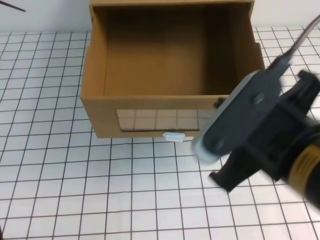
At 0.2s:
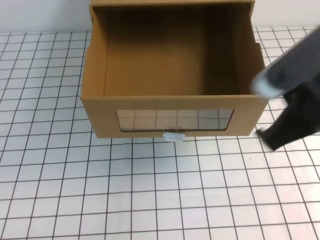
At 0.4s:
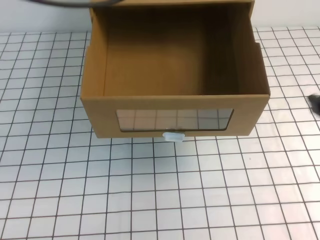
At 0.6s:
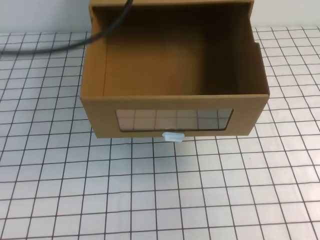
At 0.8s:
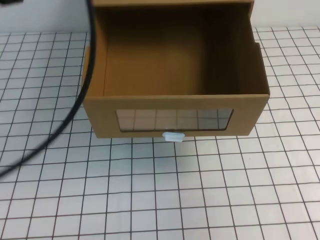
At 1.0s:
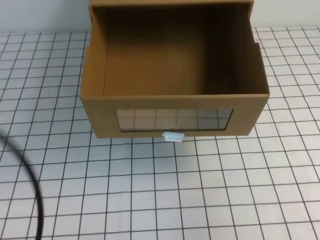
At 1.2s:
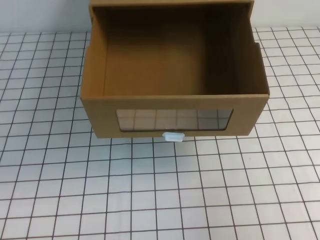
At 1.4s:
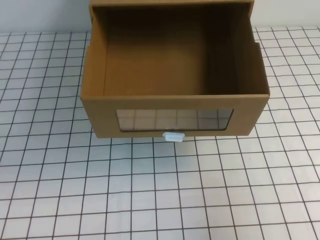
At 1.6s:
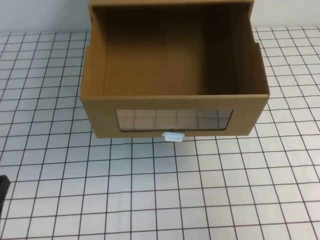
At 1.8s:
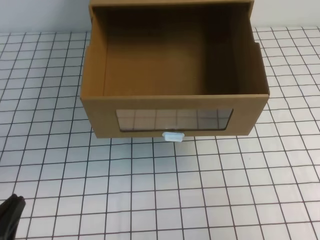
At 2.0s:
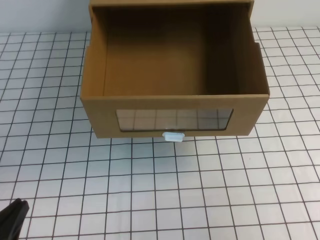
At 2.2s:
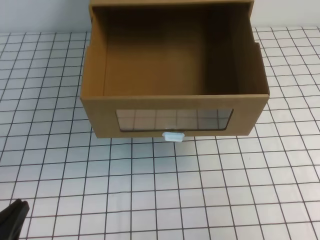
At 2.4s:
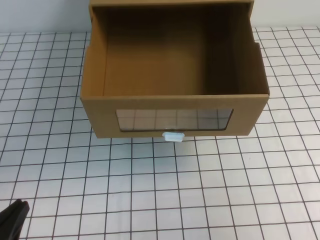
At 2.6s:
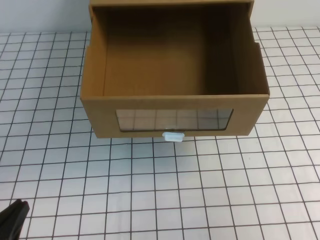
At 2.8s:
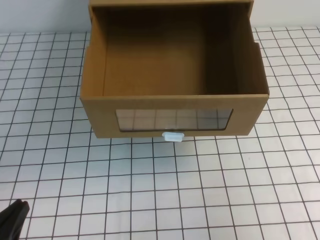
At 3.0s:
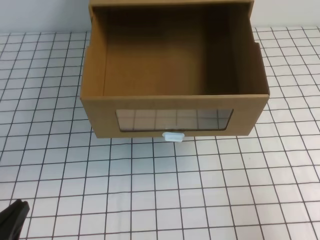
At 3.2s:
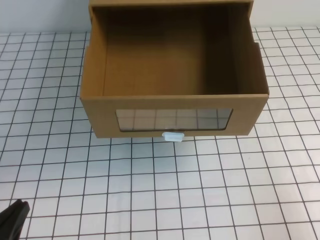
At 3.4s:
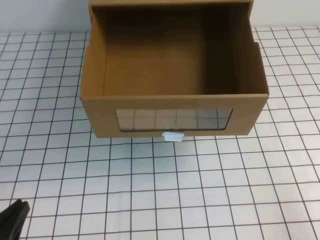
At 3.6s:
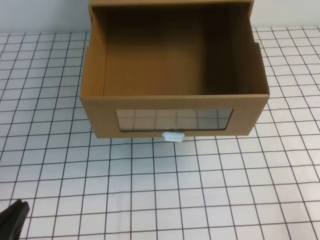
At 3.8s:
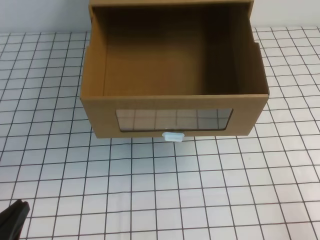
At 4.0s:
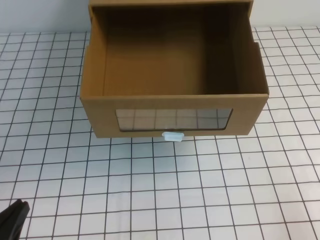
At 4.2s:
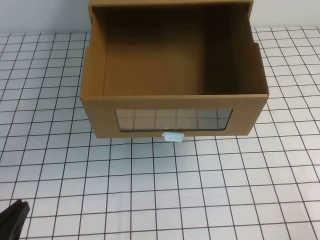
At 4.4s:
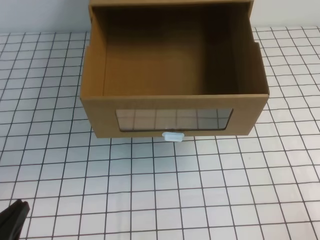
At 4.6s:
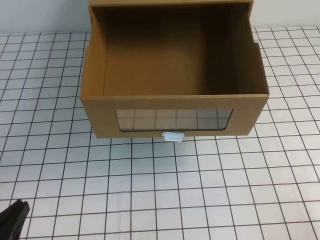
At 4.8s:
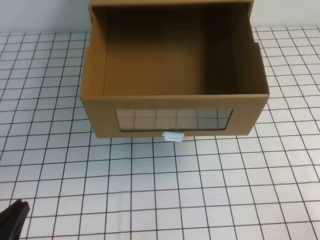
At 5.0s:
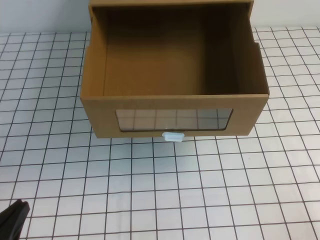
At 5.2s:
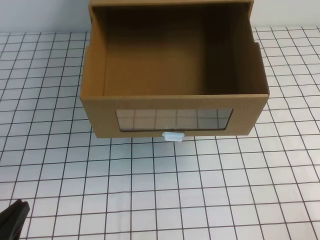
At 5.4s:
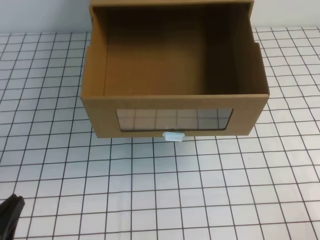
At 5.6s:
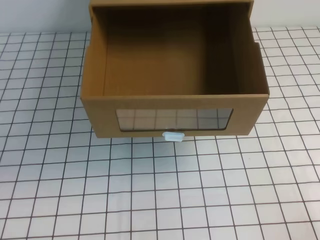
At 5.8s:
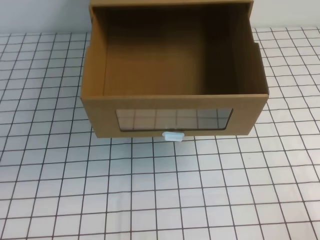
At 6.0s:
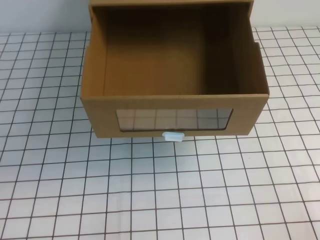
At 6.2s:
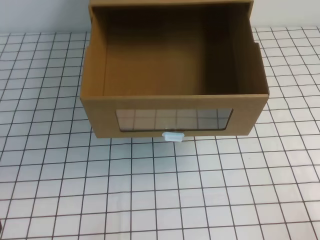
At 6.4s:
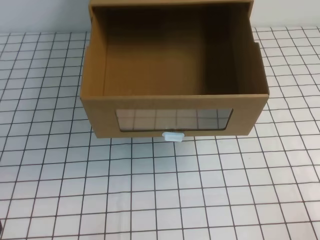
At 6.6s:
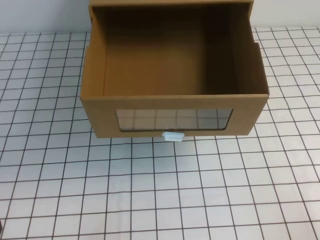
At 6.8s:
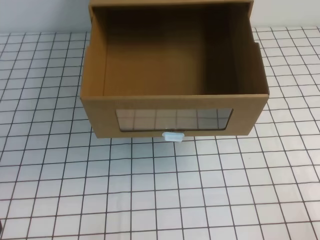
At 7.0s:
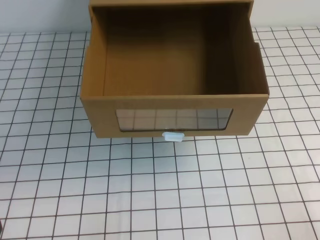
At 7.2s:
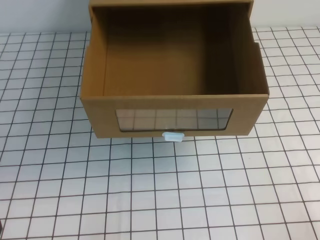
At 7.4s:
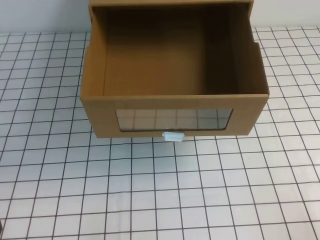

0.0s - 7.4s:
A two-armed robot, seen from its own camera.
Task of the whole recording: open the shoebox on the white tablecloth.
Step, 0.0s - 7.4s: Open the shoe box.
0.0s - 1.4s: The right gripper shifts roughly 15 cm to the right; the left gripper goes about 40 cm backward, downward and to the left.
1.4s - 3.0s: The left gripper shifts some 10 cm downward. Meanwhile the right gripper ends up about 5 cm from where it was.
3.0s - 4.4s: The right gripper is displaced downward and backward by approximately 10 cm.
4.4s - 6.0s: The grippers move only a little.

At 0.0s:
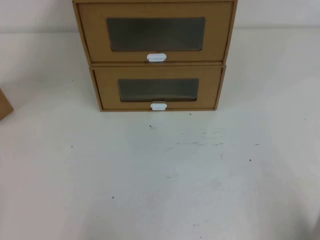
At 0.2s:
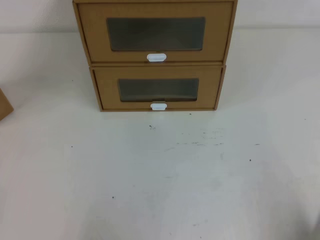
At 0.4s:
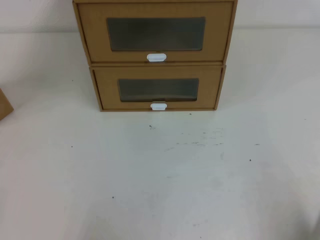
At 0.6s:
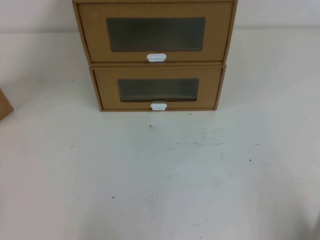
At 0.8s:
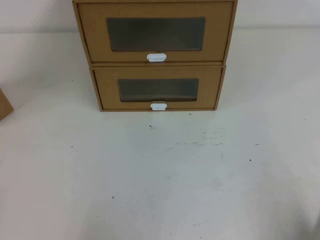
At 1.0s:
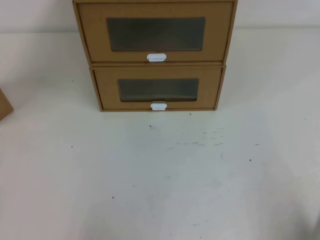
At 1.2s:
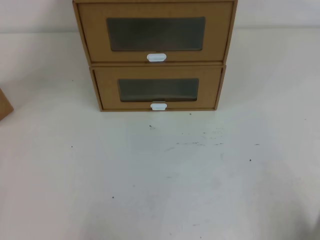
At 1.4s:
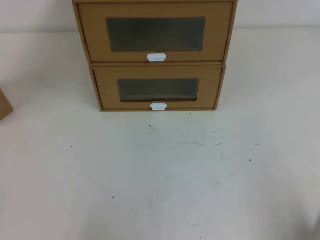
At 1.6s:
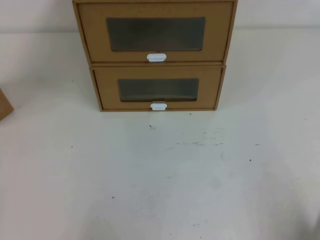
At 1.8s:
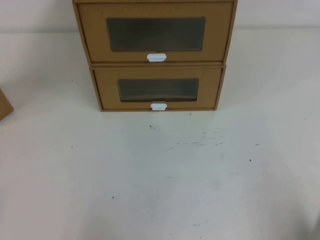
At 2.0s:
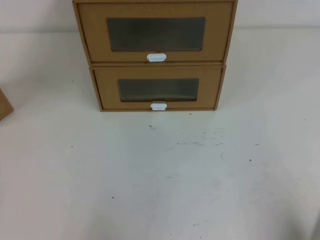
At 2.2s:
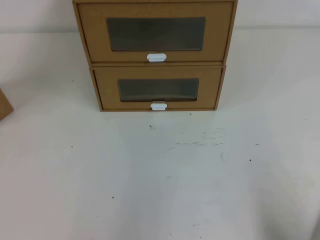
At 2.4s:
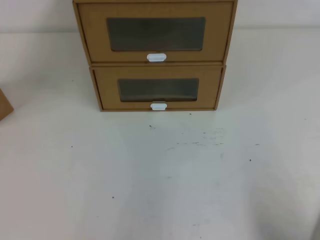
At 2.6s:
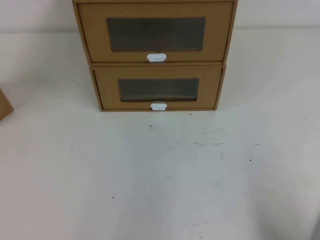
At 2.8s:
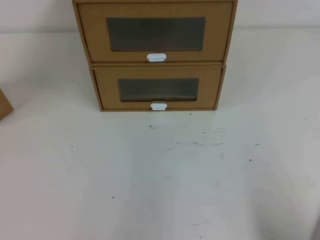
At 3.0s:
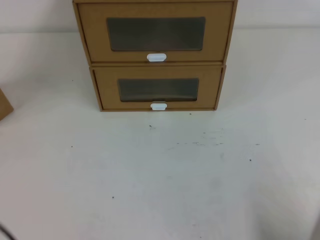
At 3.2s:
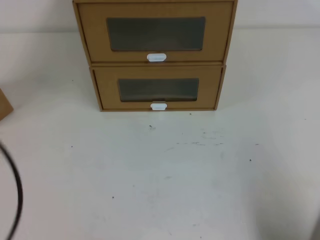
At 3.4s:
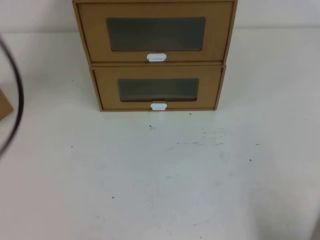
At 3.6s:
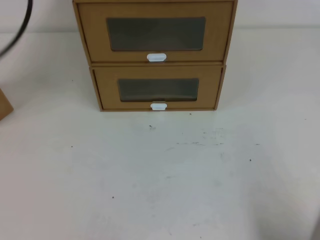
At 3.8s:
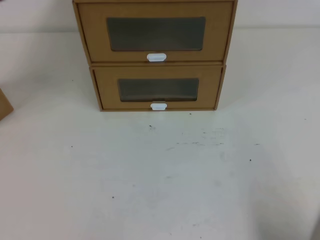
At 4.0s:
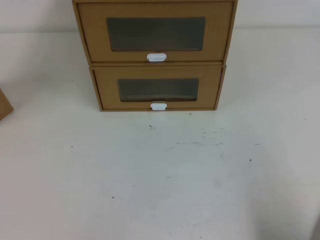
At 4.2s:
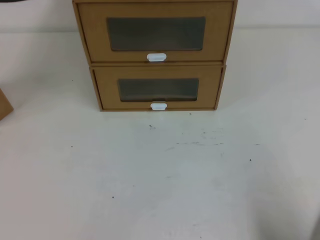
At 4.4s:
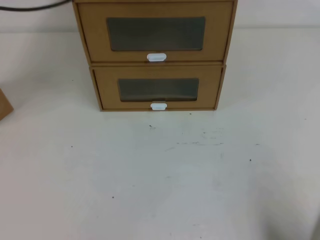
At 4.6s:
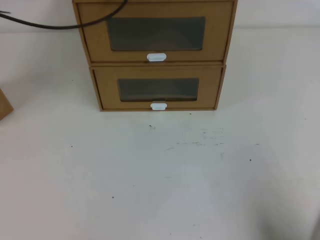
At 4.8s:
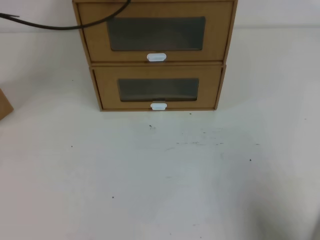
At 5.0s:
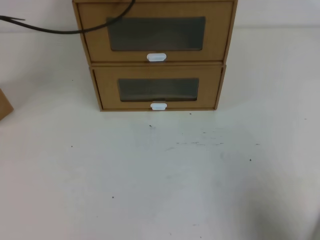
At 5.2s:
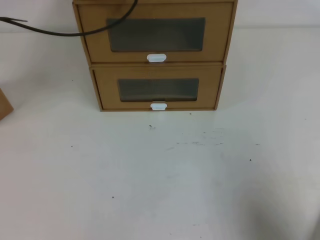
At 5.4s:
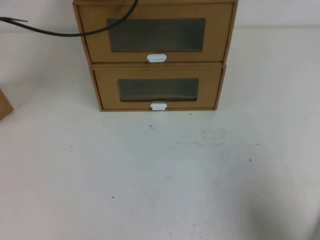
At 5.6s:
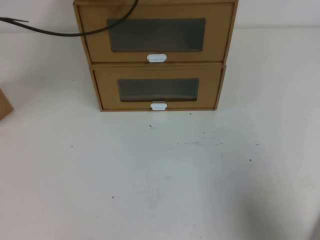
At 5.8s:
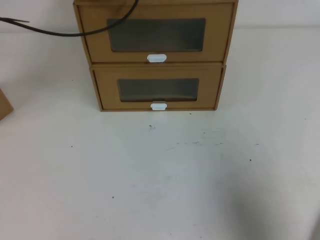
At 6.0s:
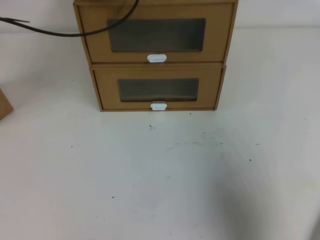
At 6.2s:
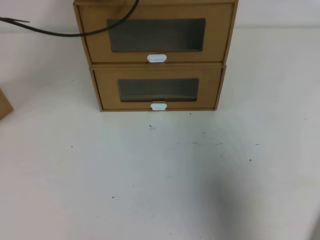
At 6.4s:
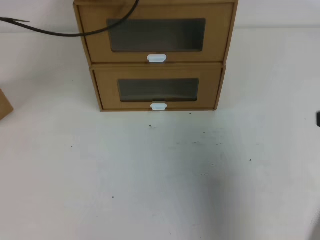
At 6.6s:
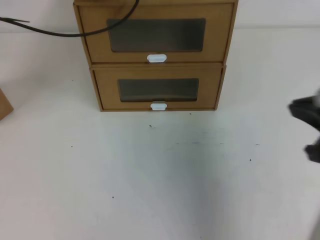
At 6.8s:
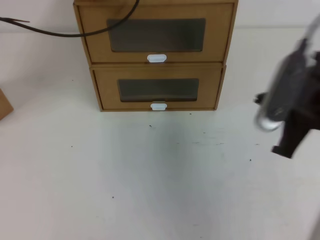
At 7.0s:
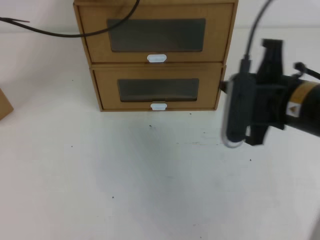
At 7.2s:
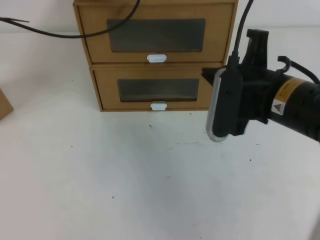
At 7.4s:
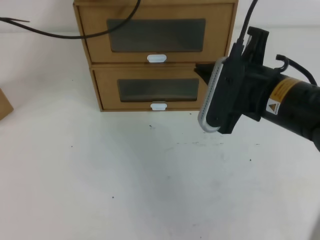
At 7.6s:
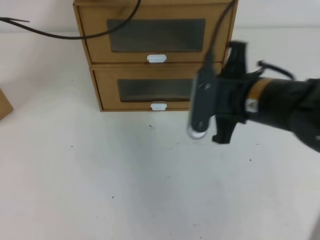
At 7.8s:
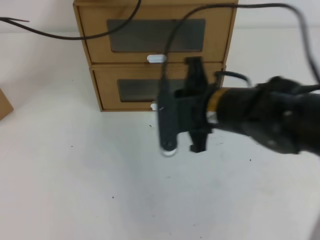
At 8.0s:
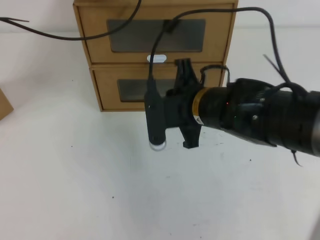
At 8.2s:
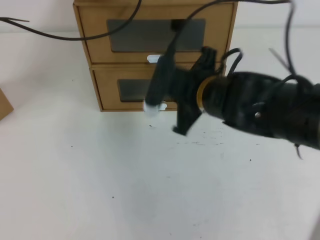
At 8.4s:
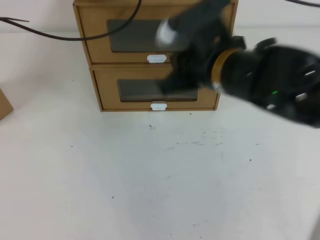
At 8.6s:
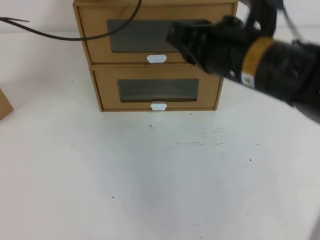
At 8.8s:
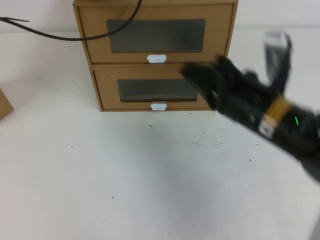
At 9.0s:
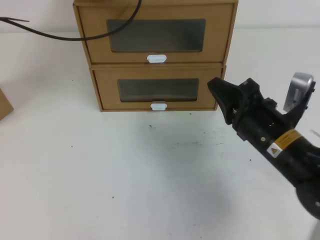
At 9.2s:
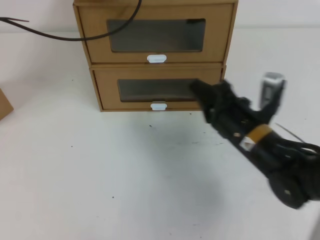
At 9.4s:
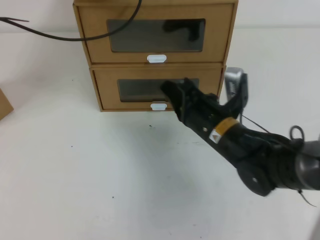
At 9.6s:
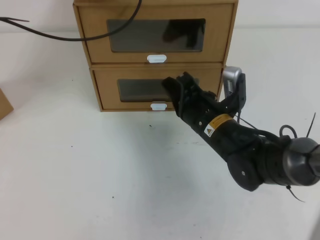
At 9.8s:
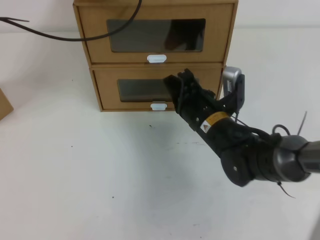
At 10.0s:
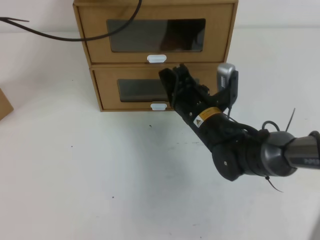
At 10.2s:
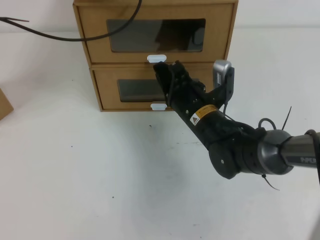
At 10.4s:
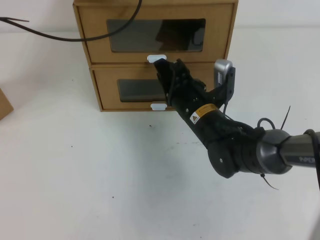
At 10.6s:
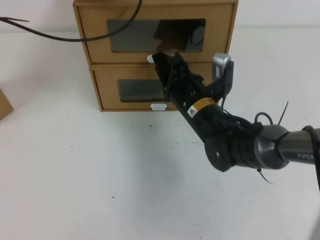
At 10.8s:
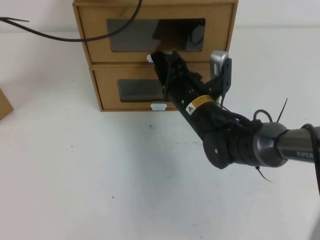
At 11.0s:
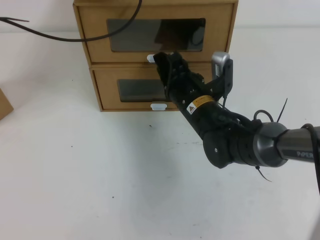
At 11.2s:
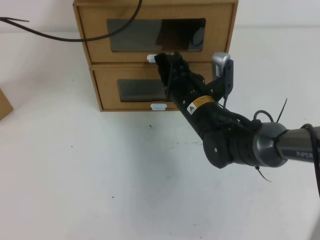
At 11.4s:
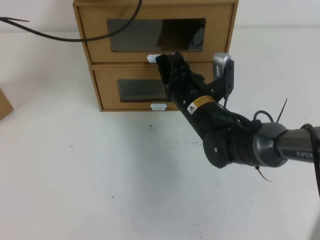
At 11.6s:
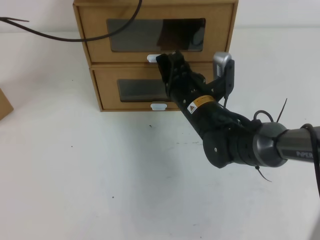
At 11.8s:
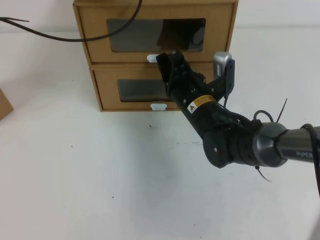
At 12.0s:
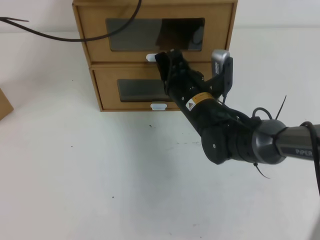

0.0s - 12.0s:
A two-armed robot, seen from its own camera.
Task of the whole recording: open the shoebox on the table.
0.0s - 1.6s: The two grippers keep their place.
3.0s - 4.4s: The left gripper shifts about 40 cm forward and upward.
4.4s - 6.0s: The left gripper is displaced downward and forward by some 10 cm; the right gripper goes about 10 cm upward and forward.
6.0s - 7.6s: The right gripper goes about 25 cm to the left and forward.
7.6s - 9.0s: The right gripper goes some 5 cm downward.
9.0s - 10.4s: The right gripper moves to the left and forward, approximately 10 cm, and opens up.
10.4s - 12.0s: The grippers stay close to where they were, moving slightly.

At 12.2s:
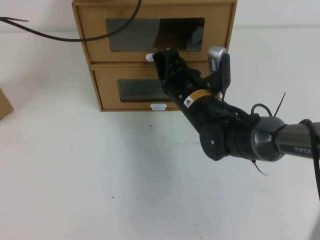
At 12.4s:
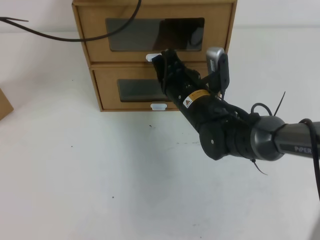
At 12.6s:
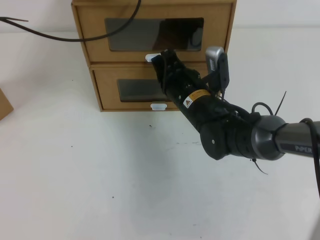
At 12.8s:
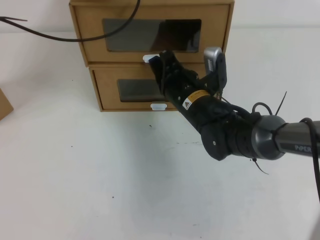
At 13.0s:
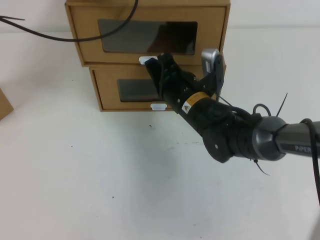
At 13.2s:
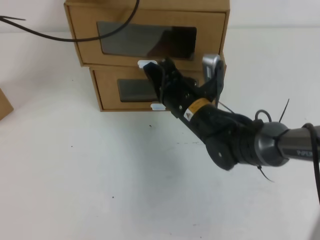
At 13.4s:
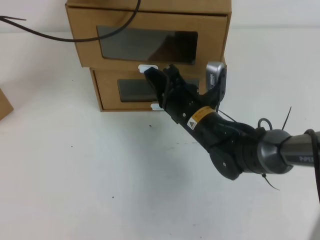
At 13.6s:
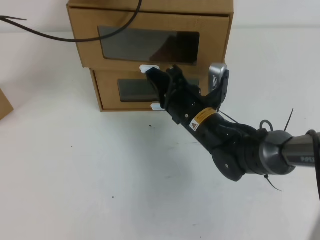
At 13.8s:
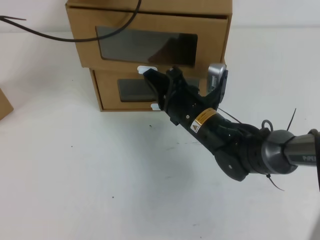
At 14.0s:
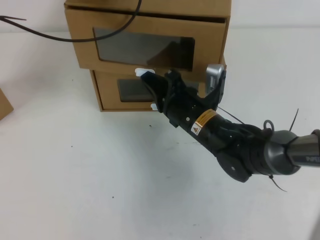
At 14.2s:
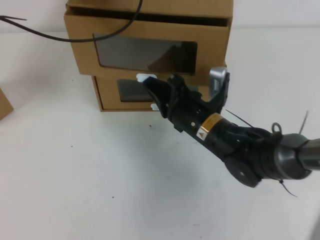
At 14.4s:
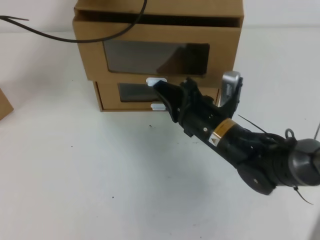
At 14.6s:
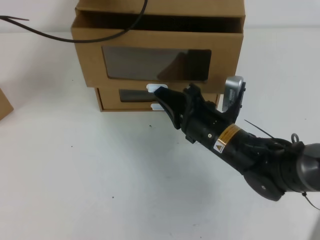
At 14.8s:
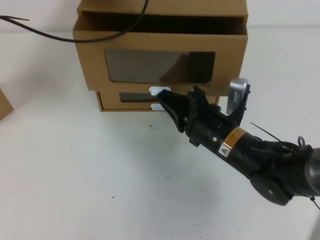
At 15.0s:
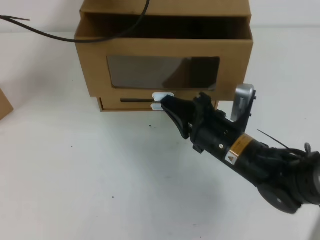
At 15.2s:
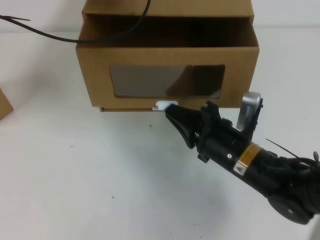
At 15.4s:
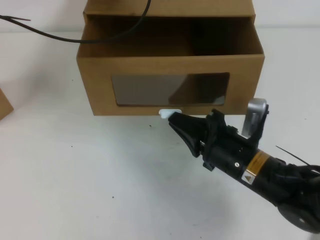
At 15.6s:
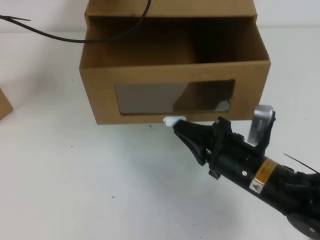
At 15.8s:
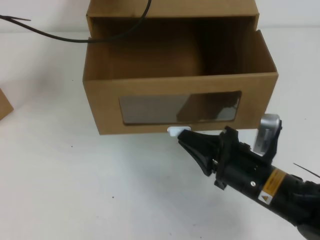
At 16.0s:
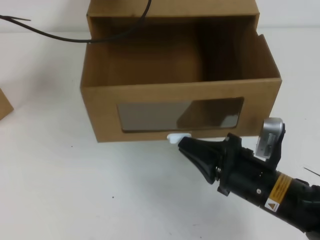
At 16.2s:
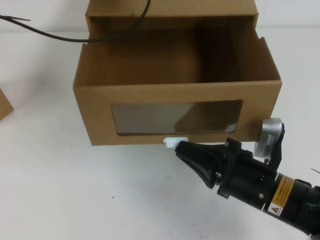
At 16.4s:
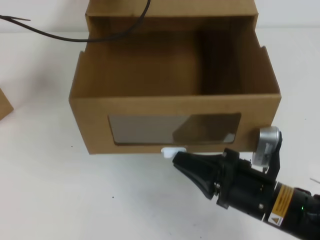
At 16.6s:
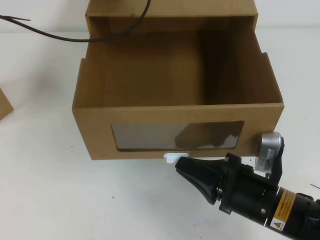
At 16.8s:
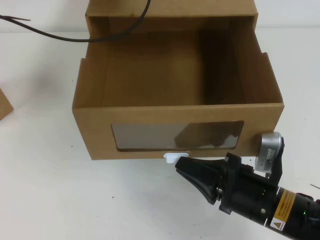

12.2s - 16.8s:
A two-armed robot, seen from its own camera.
Task of the whole recording: open the shoebox on the table.
12.2s - 13.8s: There are only small adjustments of the grippers.
13.8s - 15.2s: The right gripper goes roughly 10 cm backward and to the right.
15.2s - 16.8s: The right gripper moves backward, roughly 10 cm.
